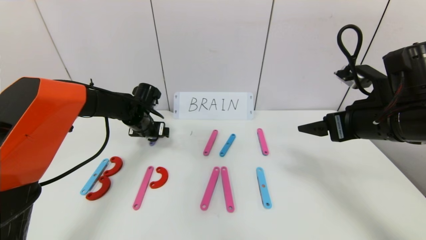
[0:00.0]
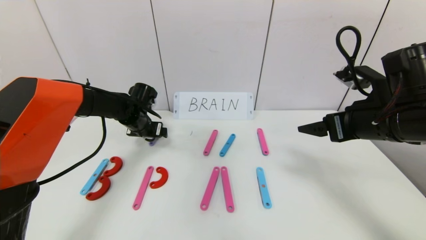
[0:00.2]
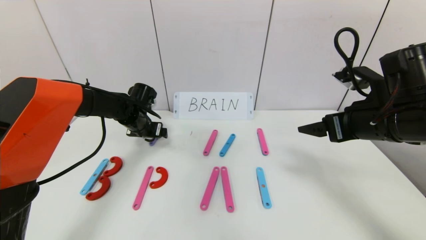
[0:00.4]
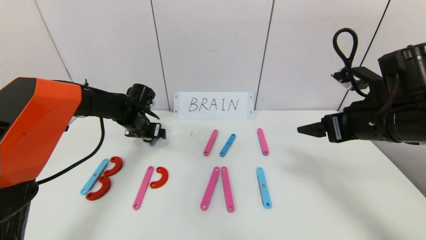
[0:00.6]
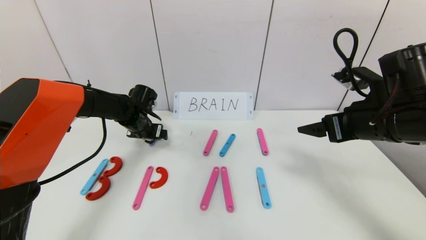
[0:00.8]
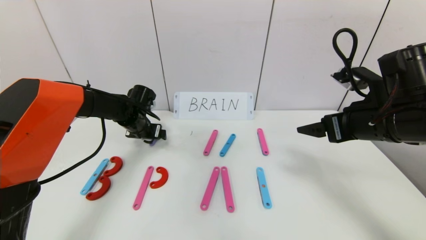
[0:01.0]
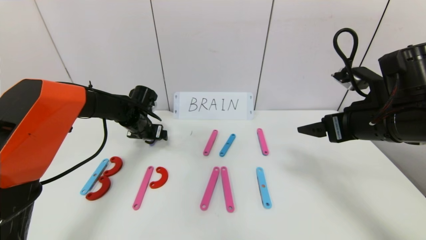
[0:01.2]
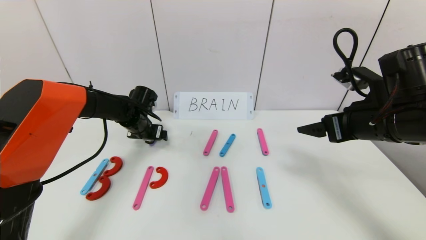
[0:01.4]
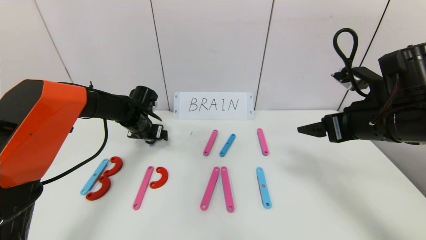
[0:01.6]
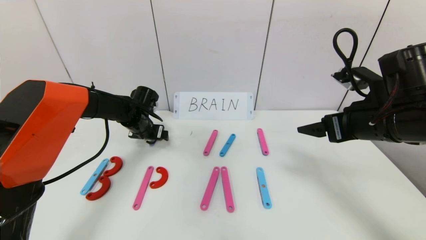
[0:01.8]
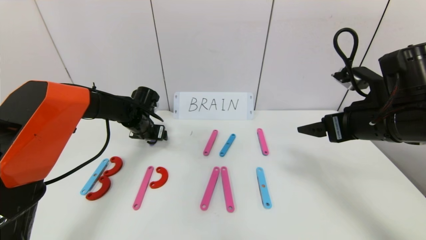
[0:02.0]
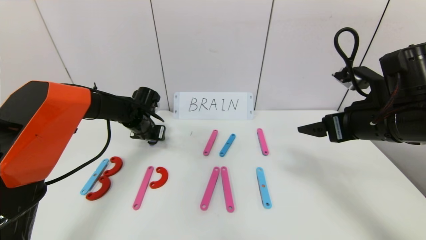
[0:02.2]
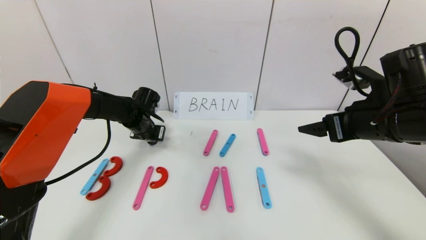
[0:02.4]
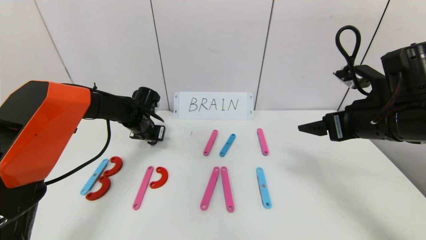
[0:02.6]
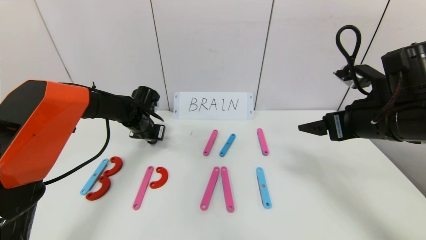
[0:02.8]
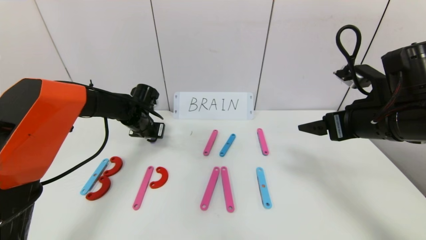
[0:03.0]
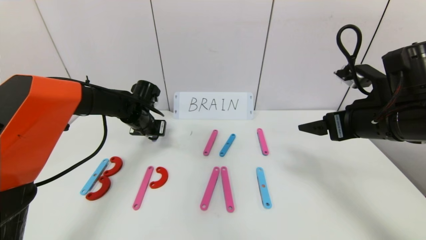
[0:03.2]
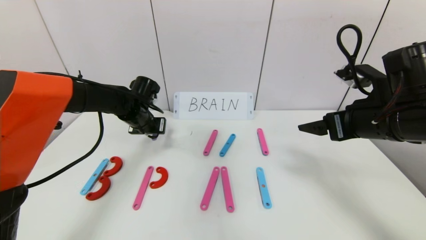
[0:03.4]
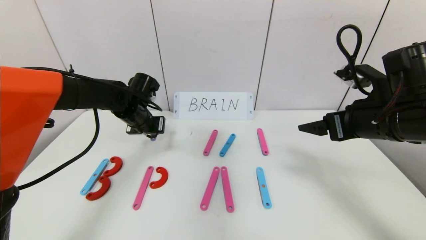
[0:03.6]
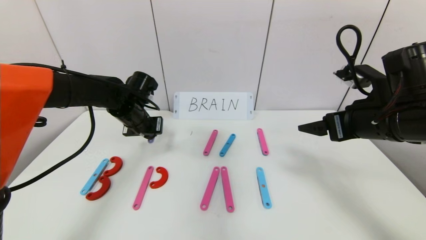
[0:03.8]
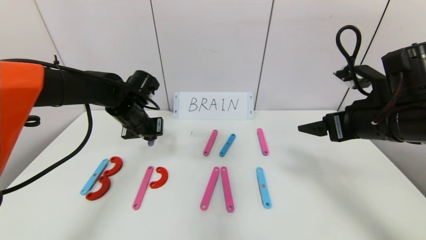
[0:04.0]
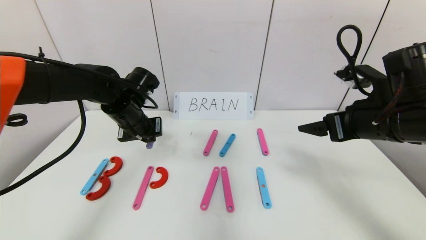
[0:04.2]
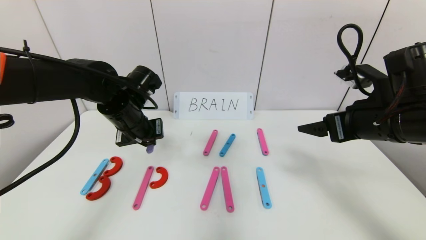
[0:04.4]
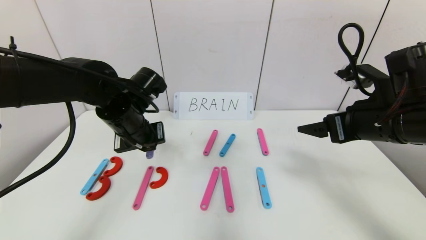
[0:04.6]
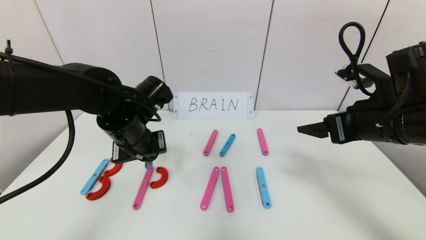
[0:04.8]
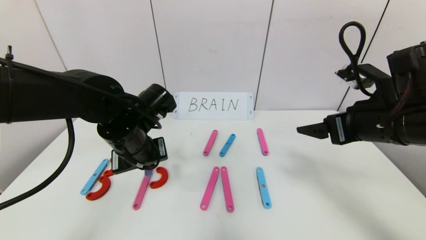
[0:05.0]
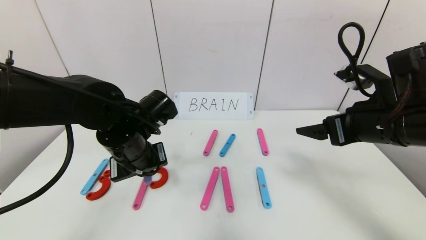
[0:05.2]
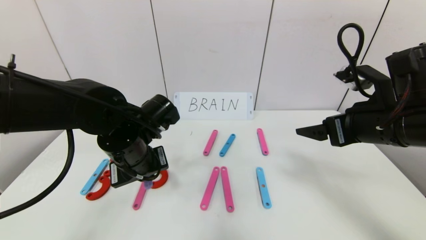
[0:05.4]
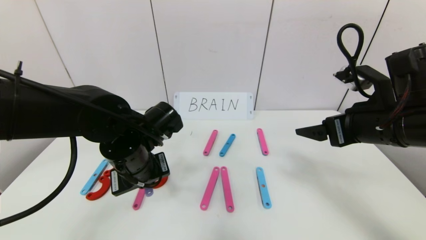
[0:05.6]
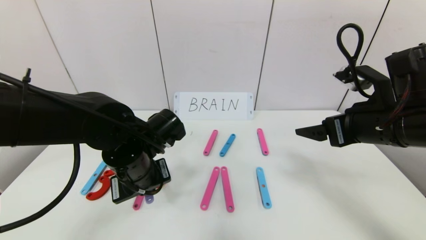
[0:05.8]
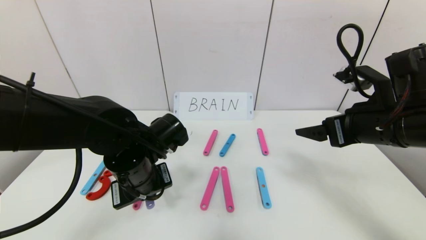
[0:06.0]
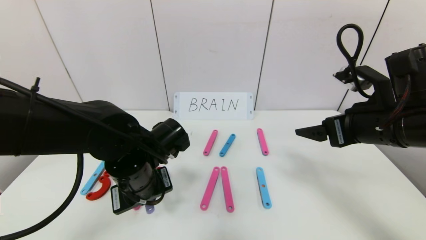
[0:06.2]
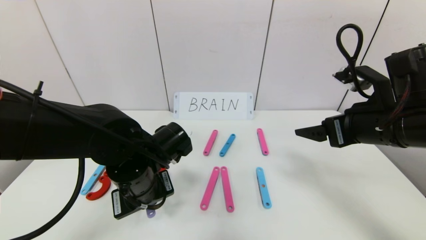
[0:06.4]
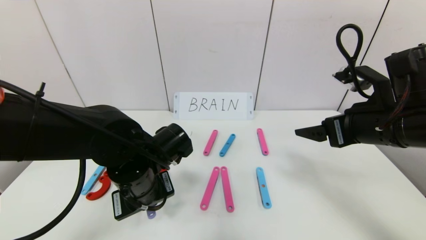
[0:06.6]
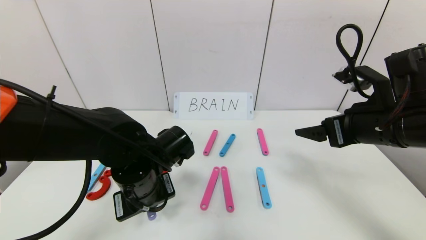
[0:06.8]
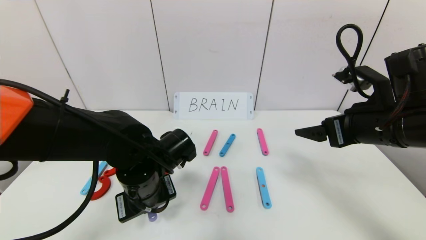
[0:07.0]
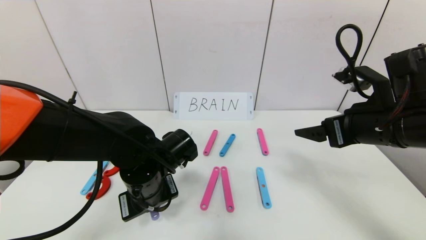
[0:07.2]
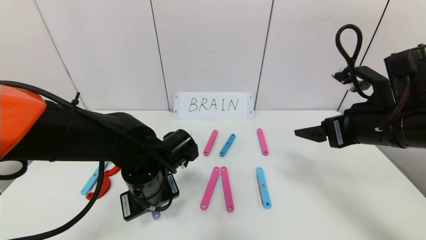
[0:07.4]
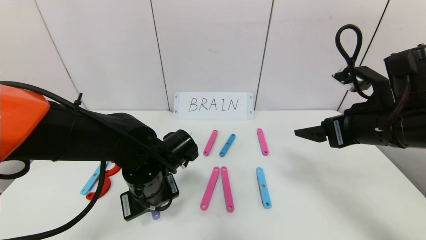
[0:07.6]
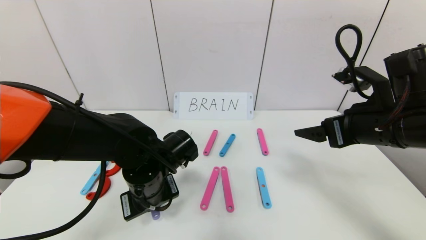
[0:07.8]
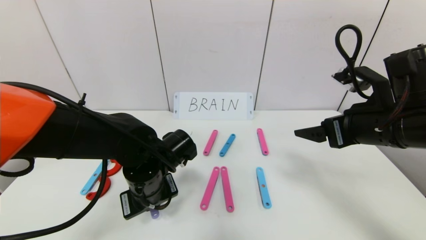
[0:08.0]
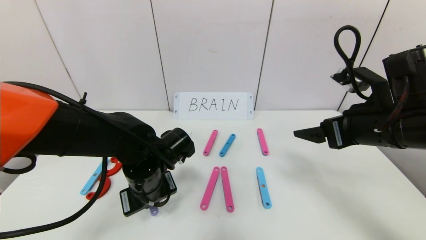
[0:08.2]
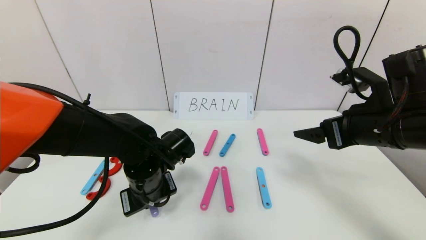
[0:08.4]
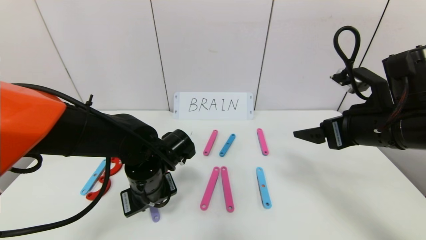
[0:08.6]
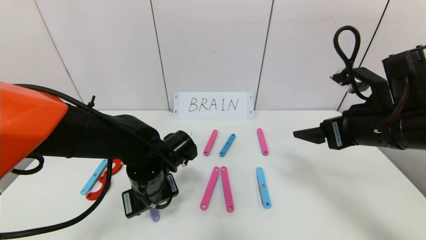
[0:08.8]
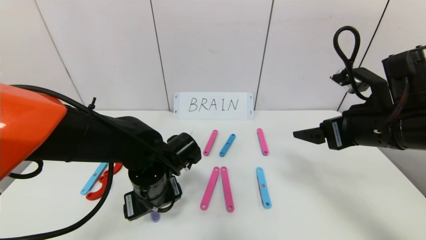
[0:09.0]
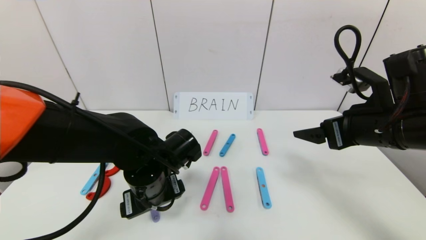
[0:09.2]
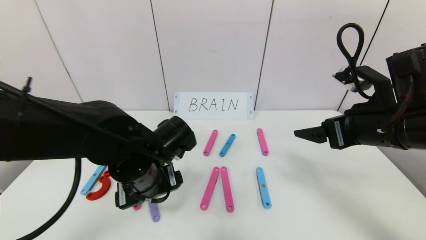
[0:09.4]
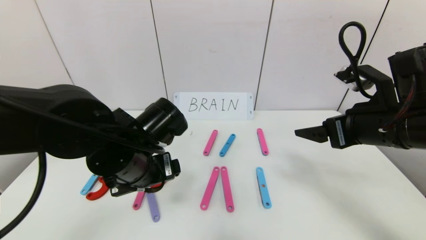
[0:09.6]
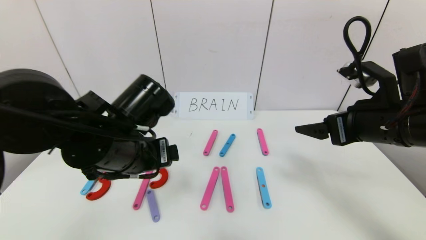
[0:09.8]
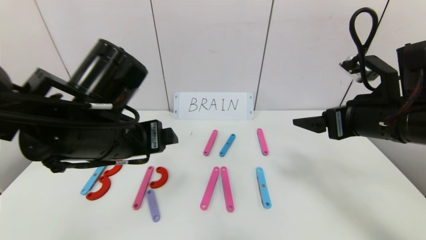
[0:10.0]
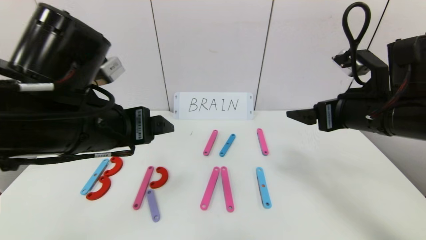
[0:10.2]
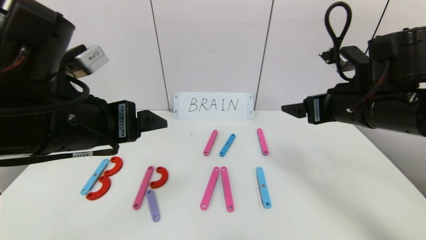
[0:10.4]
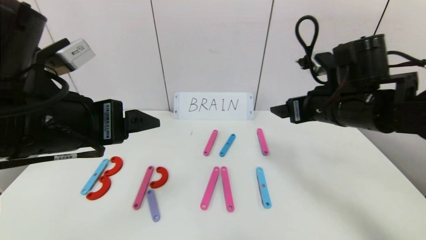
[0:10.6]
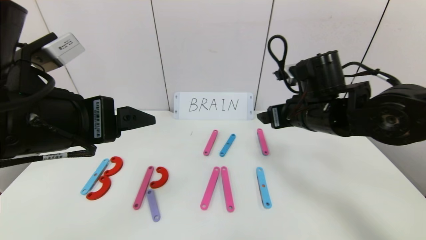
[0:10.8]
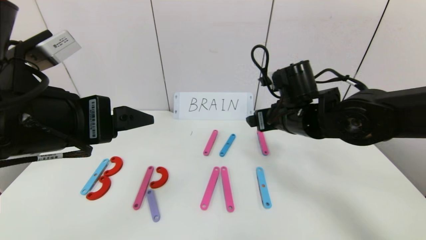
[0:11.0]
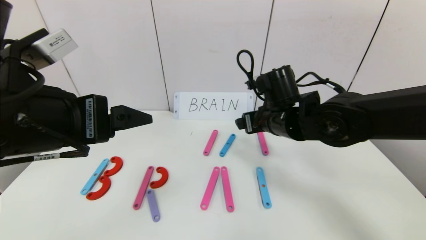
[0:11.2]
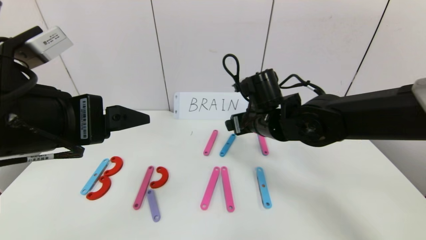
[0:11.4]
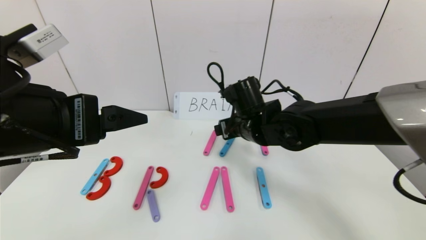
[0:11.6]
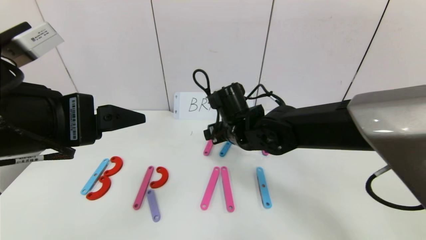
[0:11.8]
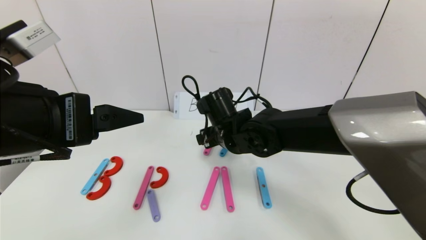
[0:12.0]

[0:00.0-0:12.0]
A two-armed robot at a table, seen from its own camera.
Task of the whole recording: rearrange the word baai as brain.
Step, 0:00.0 to 0:08.6: Place the character R between first character B and third character A.
0:00.0 to 0:01.6: The grippers move only a little.
0:01.6 to 0:03.0: The left gripper closes its fingers.
0:03.0 to 0:04.4: The left gripper moves backward and upward, about 15 cm.
0:04.4 to 0:06.0: The left gripper moves backward, about 10 cm.
0:06.0 to 0:07.6: The grippers make only small movements.
0:07.6 to 0:09.0: The left gripper opens its fingers.
0:09.0 to 0:10.4: The left gripper heads upward and backward, covering some 20 cm.
0:10.4 to 0:12.0: The right gripper is displaced to the left and downward by roughly 25 cm.

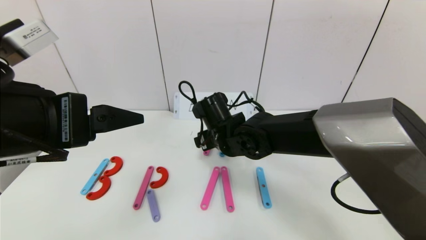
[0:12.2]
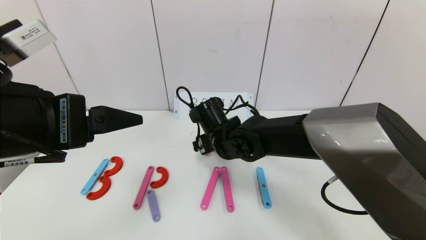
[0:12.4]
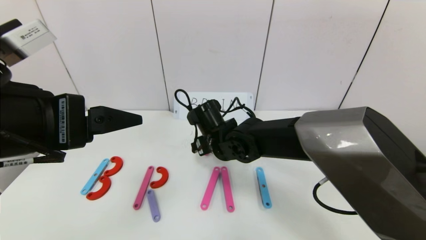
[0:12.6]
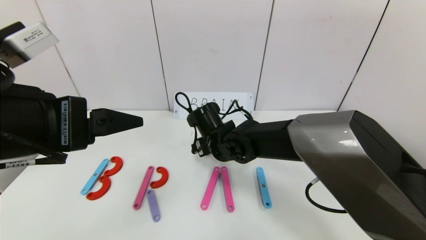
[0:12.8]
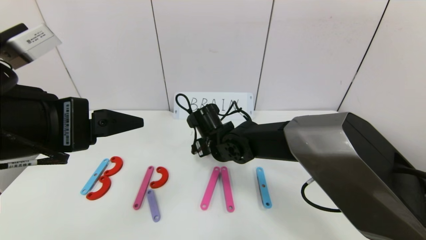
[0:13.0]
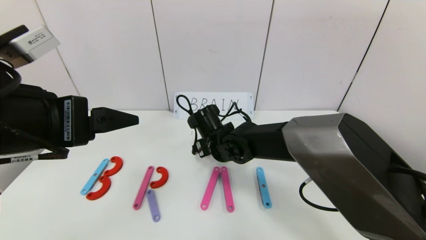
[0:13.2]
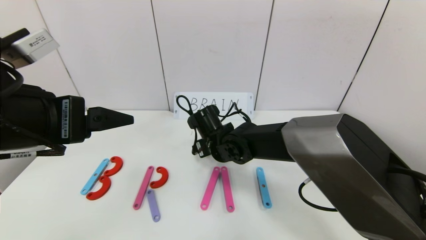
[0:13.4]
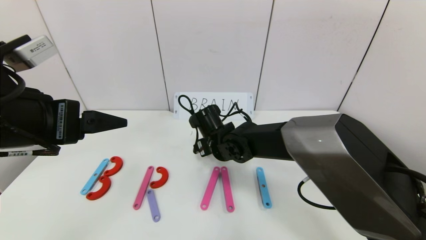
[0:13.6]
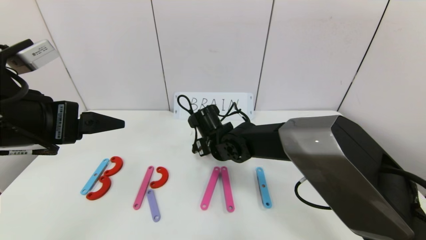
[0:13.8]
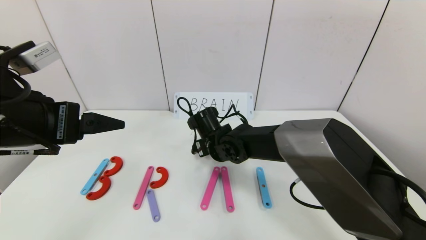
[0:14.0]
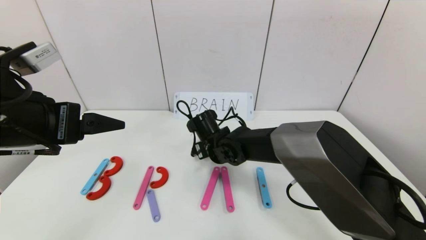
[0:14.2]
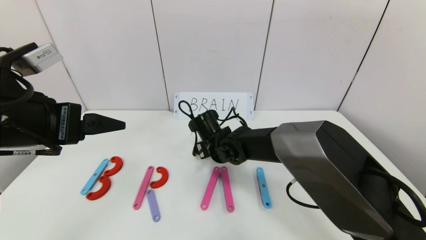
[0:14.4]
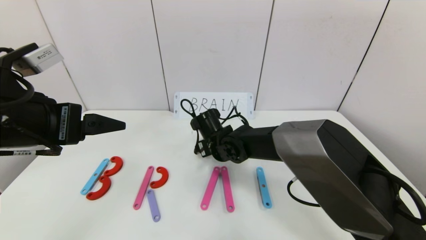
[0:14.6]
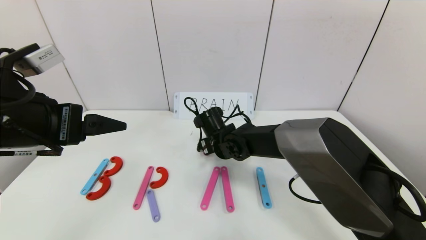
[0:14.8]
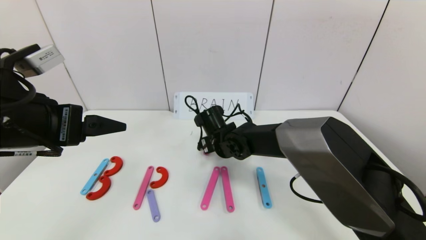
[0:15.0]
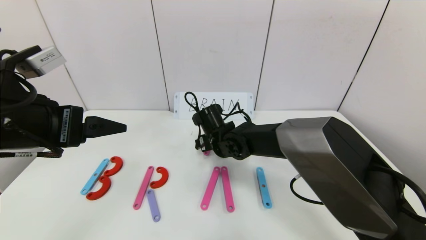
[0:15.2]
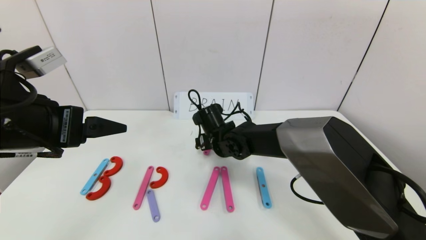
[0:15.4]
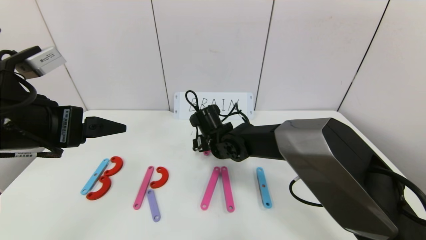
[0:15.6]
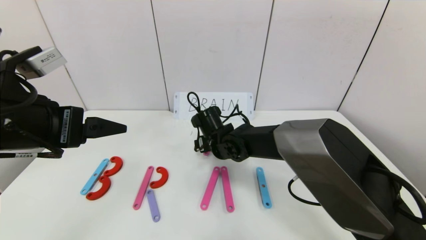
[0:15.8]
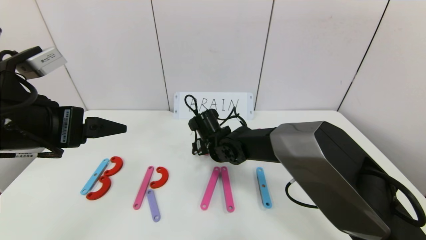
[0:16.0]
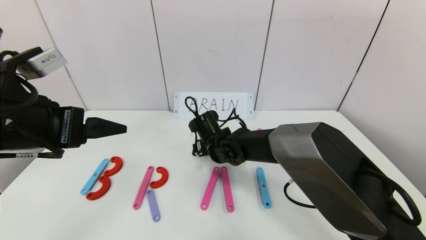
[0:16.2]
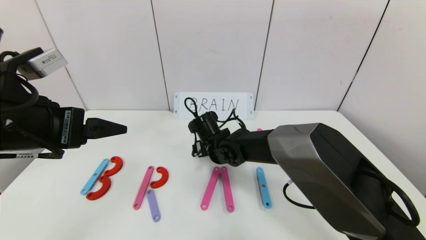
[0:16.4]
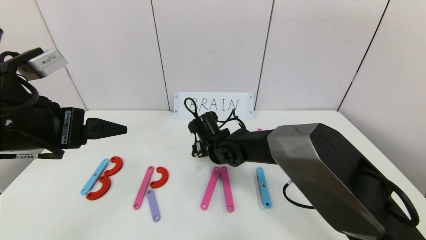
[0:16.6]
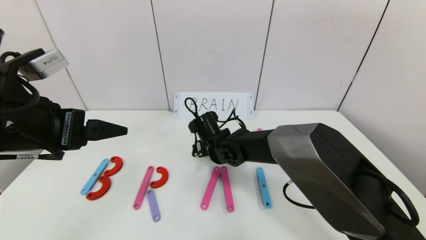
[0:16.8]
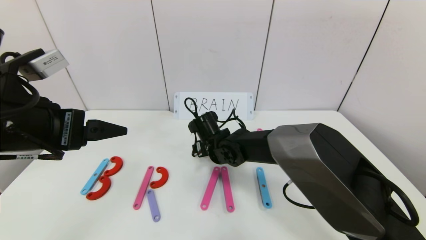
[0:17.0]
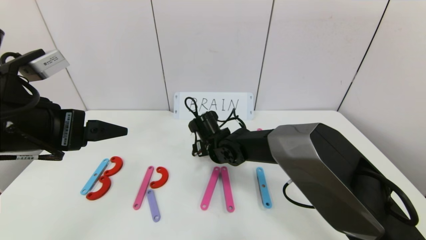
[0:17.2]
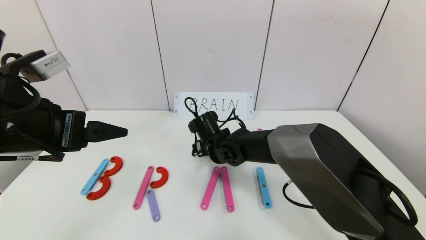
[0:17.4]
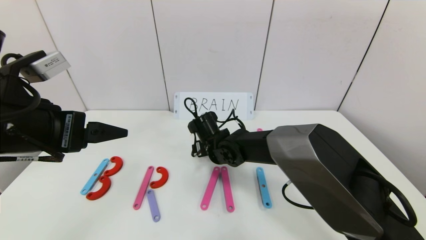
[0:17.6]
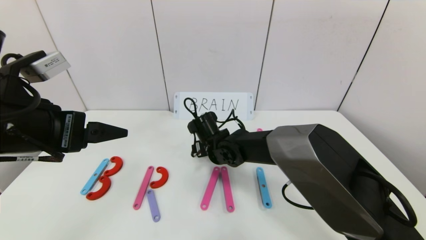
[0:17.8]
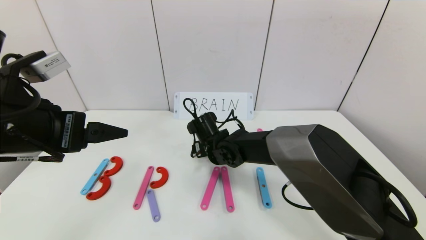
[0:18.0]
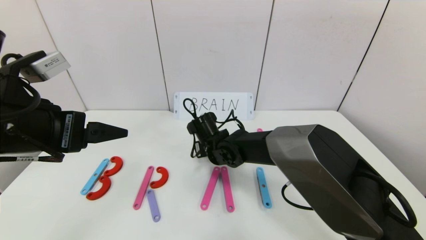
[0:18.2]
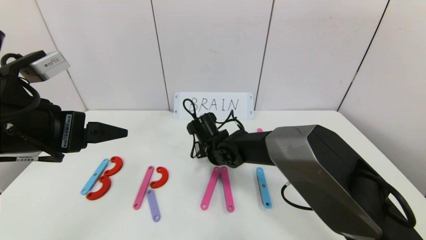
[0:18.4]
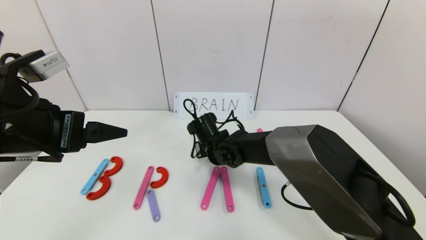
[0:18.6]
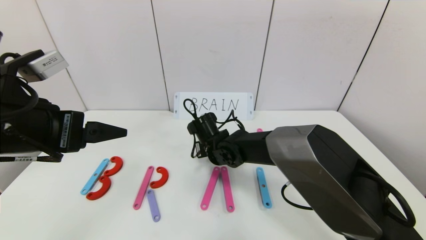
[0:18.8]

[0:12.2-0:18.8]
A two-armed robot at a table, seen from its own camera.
Task of the whole recording: rearrange the word baai as brain.
0:12.2 to 0:13.8: The right gripper ends up roughly 5 cm from where it was; the left gripper changes place by some 5 cm.
0:13.8 to 0:17.2: There are only small adjustments of the grippers.
0:17.2 to 0:18.8: The right gripper closes.
